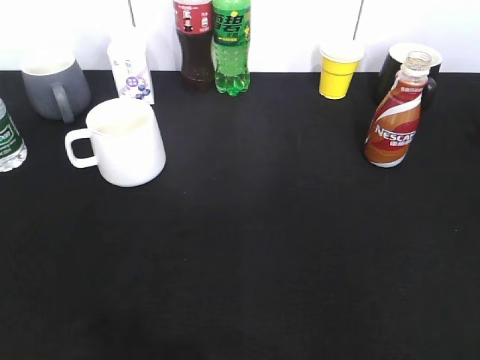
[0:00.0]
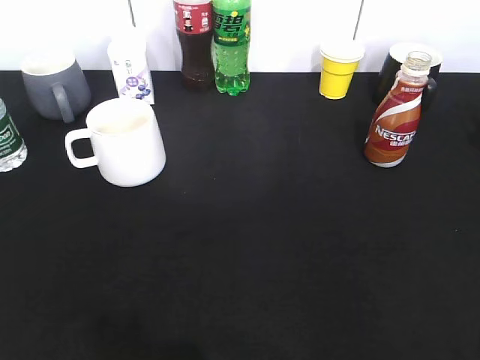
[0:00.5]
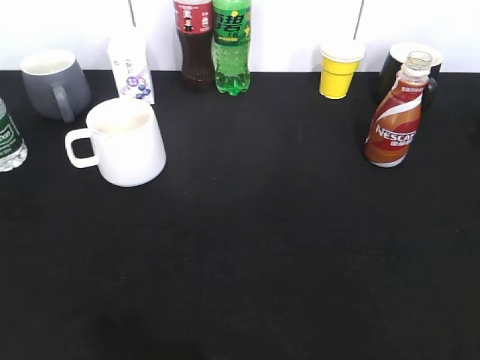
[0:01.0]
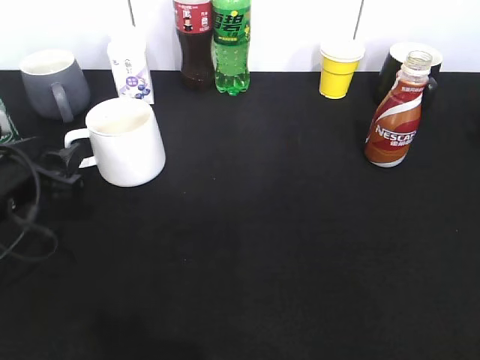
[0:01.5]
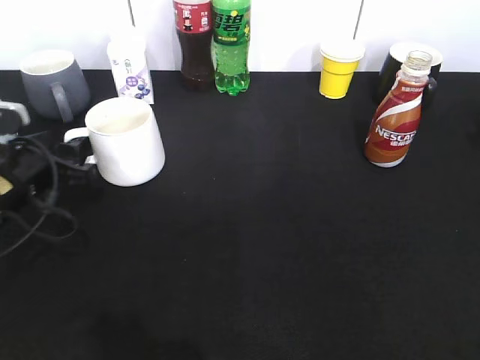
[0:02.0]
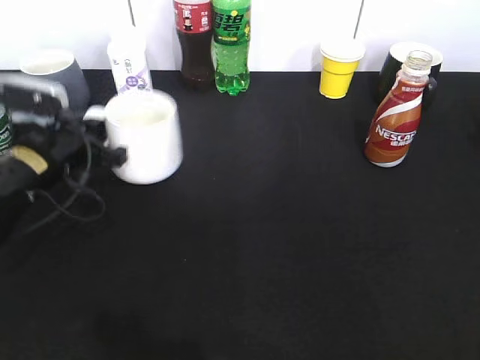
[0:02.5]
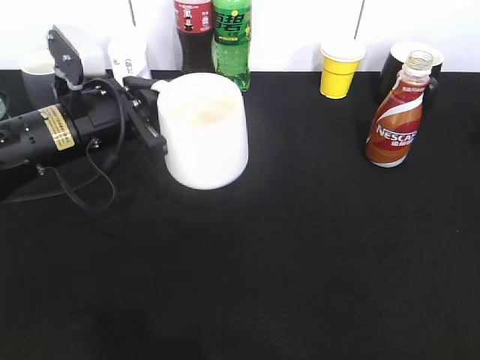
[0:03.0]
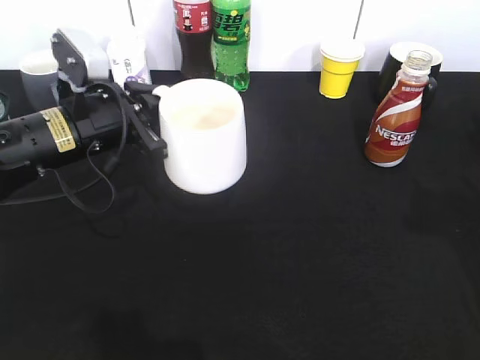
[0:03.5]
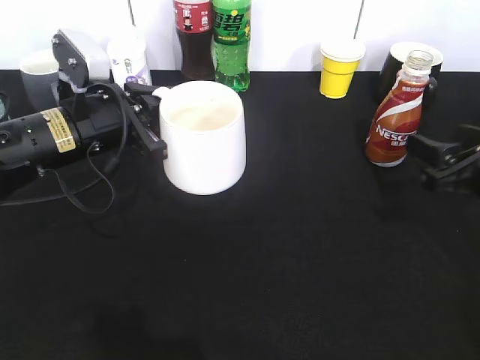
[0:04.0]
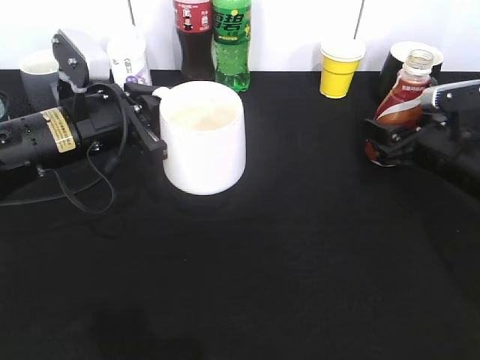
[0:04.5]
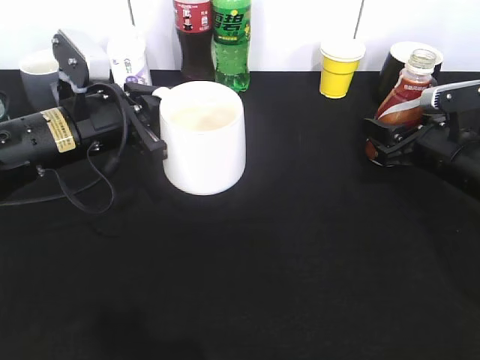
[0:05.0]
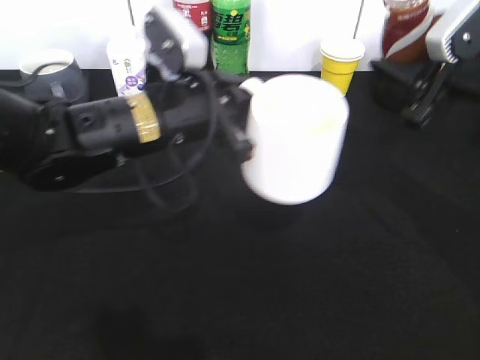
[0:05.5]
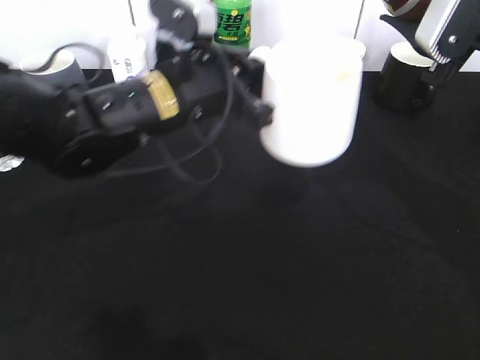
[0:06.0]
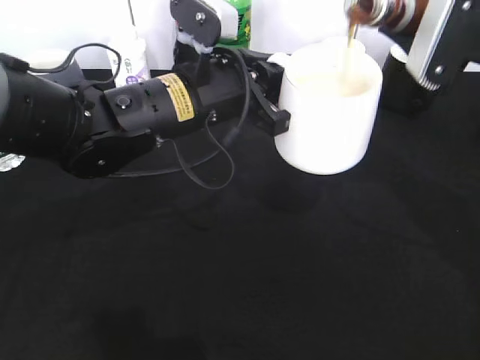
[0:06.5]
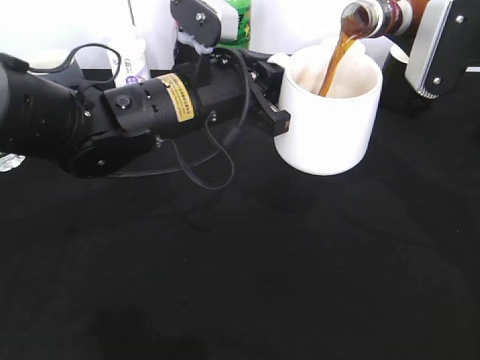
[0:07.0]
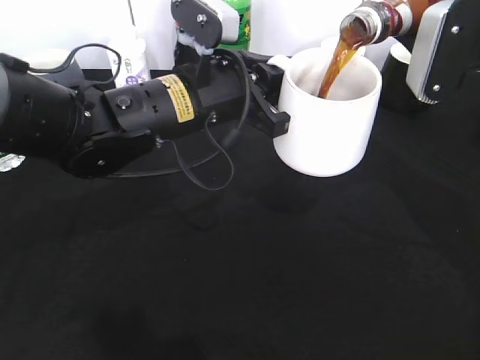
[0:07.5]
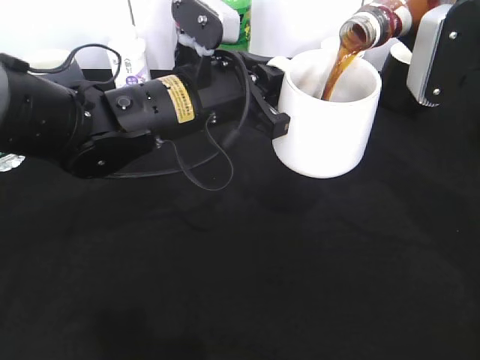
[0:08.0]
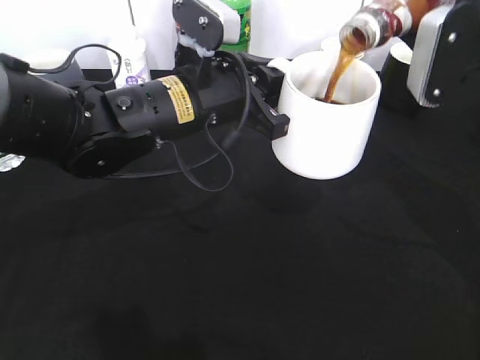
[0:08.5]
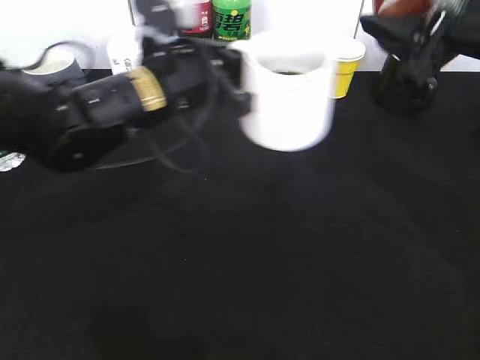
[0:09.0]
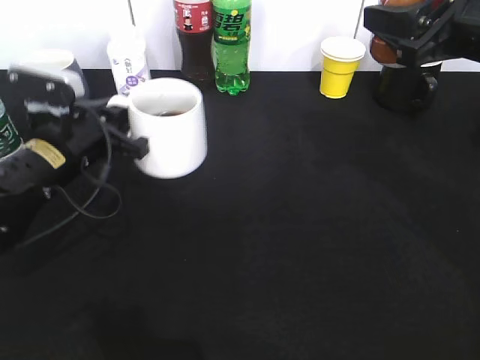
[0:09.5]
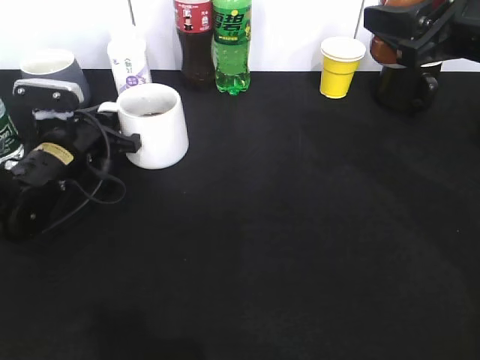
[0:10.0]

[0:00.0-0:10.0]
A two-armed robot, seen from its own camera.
Step, 0:00.0 to 0:02.0: Grasp the white cup with left gripper.
Step, 0:03.5 to 0:04.5: Grasp the bottle with coffee with right gripper.
Step, 0:05.0 to 0:08.5: Pour the coffee from bottle to cup with right gripper.
0:00.0 to 0:02.0: The left gripper goes roughly 30 cm forward and downward, and opens.
0:02.0 to 0:04.0: The right gripper travels forward and downward by roughly 30 cm; the left gripper heads to the right and upward, covering about 10 cm, and closes.
0:04.0 to 0:06.0: The left gripper moves to the right, some 10 cm. Meanwhile the right gripper goes approximately 15 cm upward, and closes its fingers.
0:08.0 to 0:10.0: The left gripper moves to the left and downward, some 20 cm.

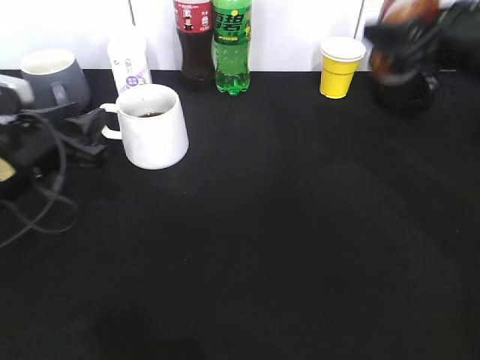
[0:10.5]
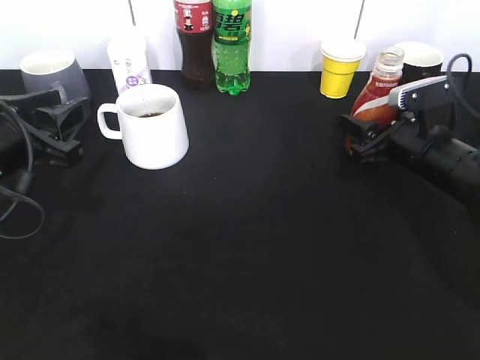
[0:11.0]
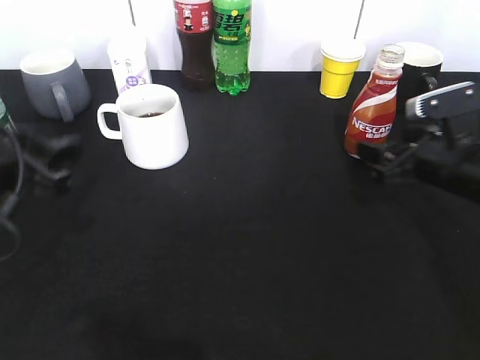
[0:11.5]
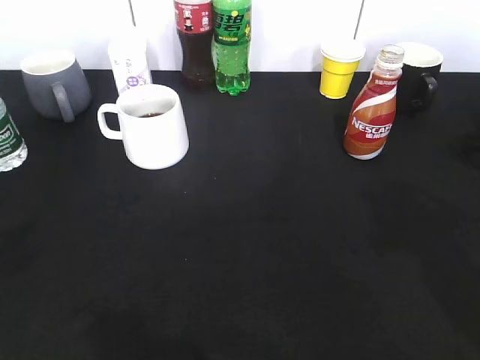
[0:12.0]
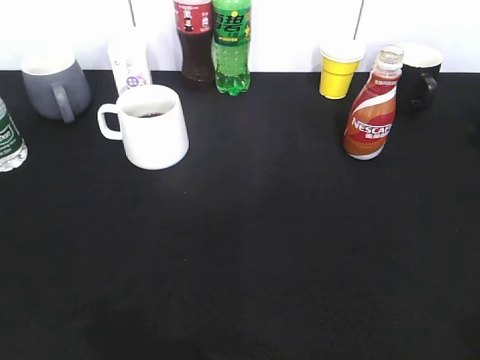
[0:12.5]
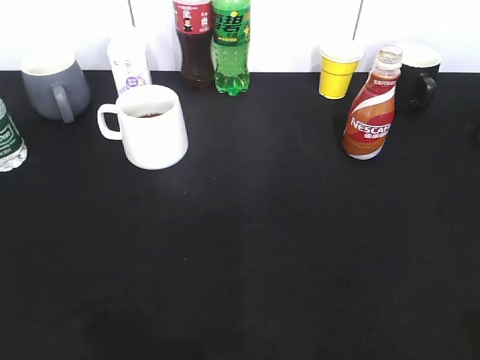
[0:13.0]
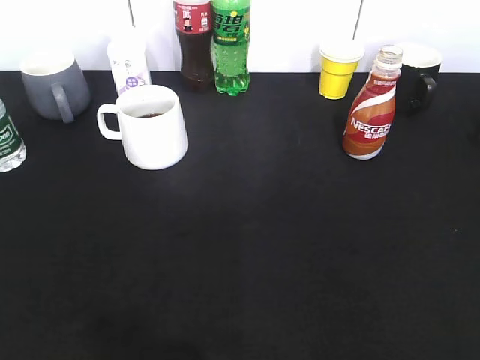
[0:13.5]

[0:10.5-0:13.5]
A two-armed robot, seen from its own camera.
Step, 0:11.0 to 0:11.5: Place the coffee bottle on the table with right gripper.
0:10.5 to 0:12.0: The left gripper shifts approximately 20 cm backward and upward; the right gripper shifts approximately 15 cm backward, moves roughly 15 cm downward and comes back, and opens up.
0:12.0 to 0:13.5: Both grippers travel together backward, some 15 cm.

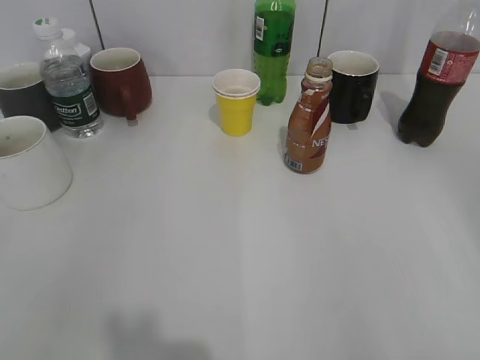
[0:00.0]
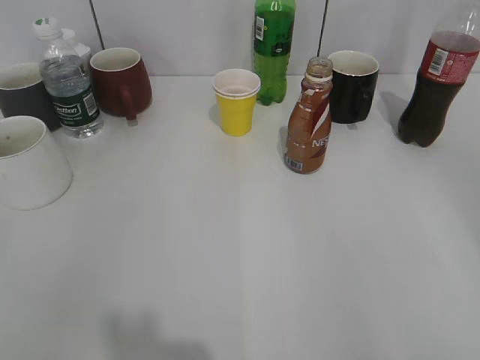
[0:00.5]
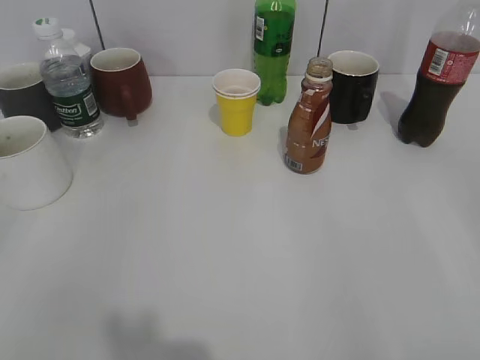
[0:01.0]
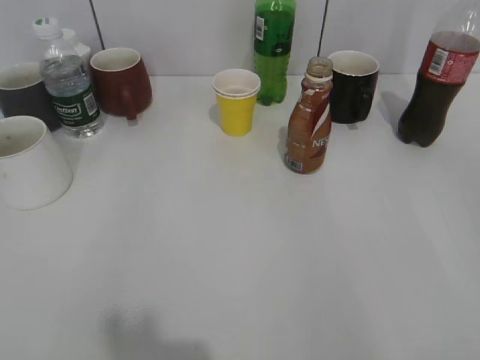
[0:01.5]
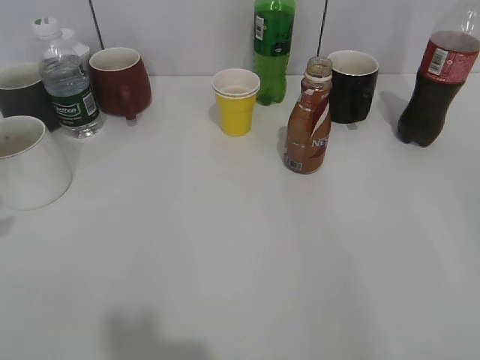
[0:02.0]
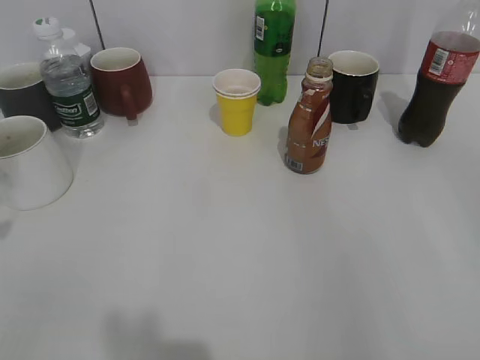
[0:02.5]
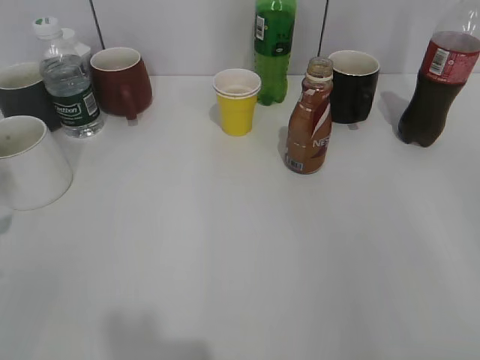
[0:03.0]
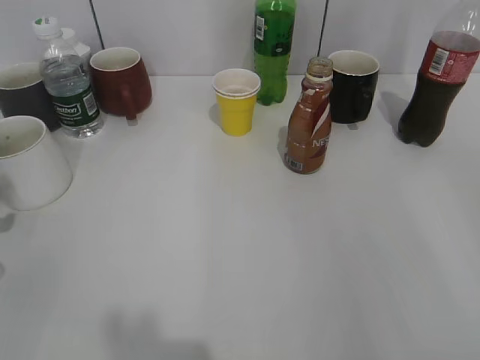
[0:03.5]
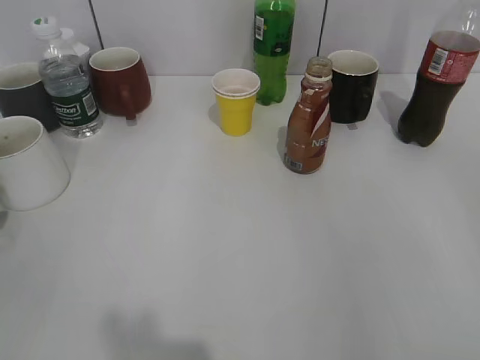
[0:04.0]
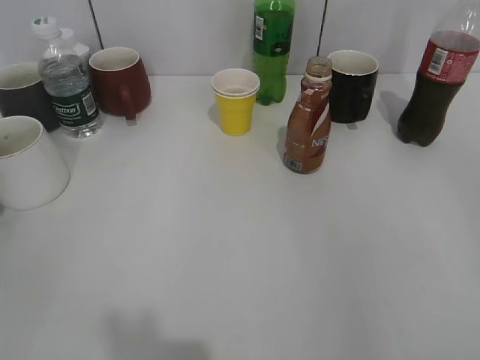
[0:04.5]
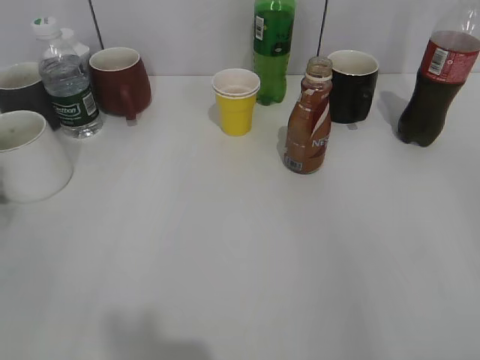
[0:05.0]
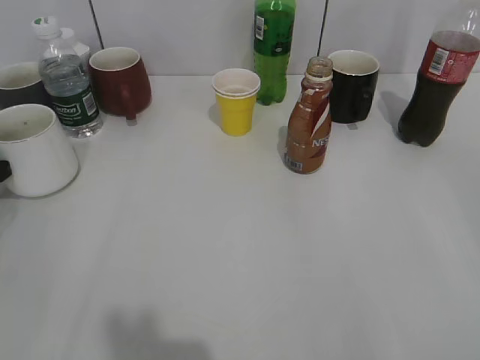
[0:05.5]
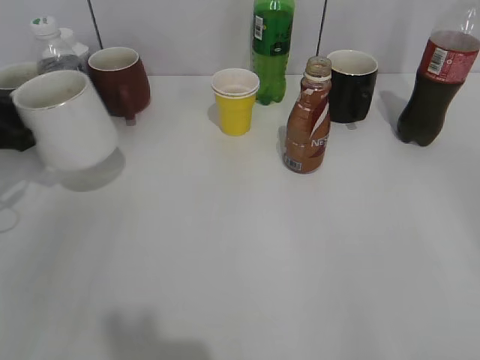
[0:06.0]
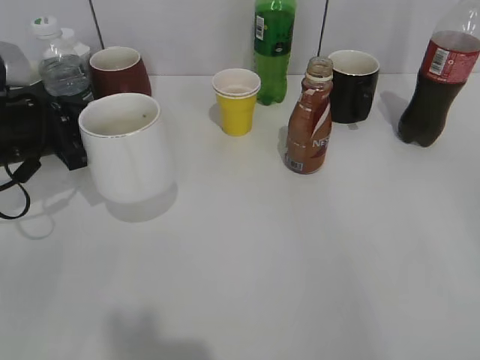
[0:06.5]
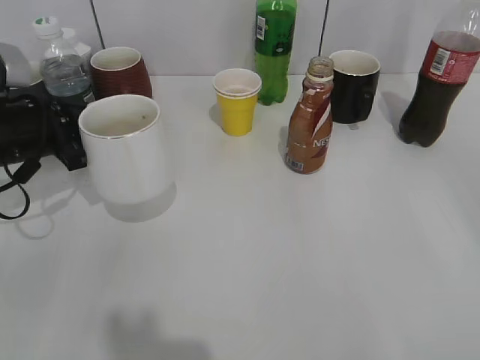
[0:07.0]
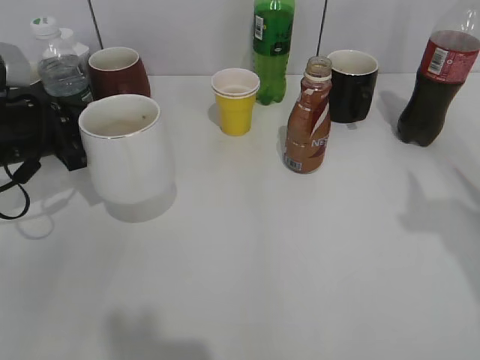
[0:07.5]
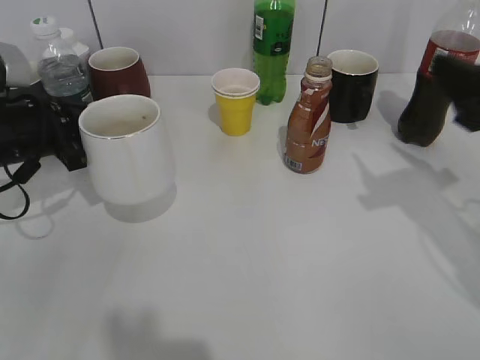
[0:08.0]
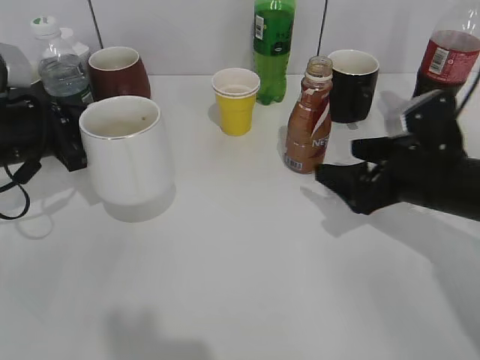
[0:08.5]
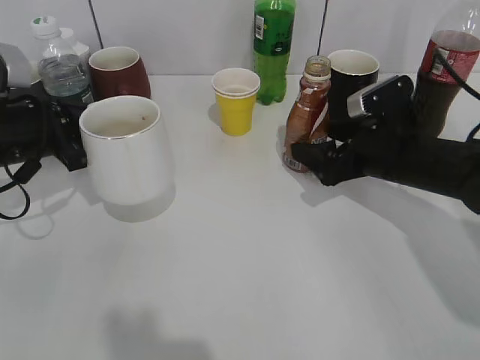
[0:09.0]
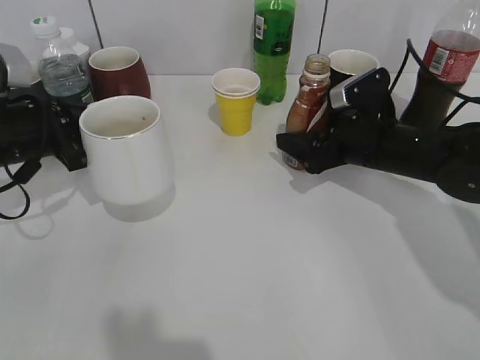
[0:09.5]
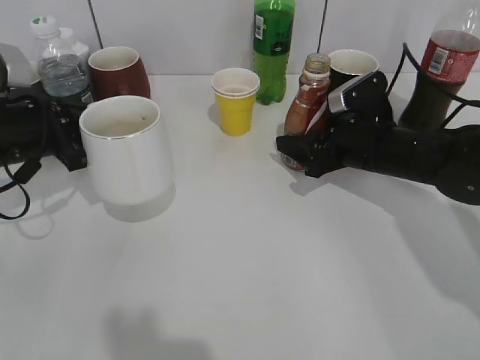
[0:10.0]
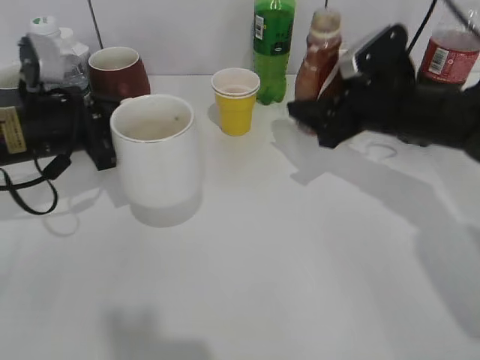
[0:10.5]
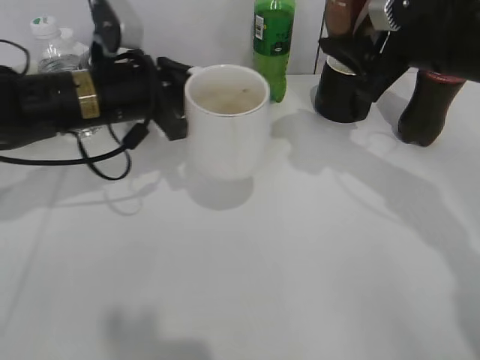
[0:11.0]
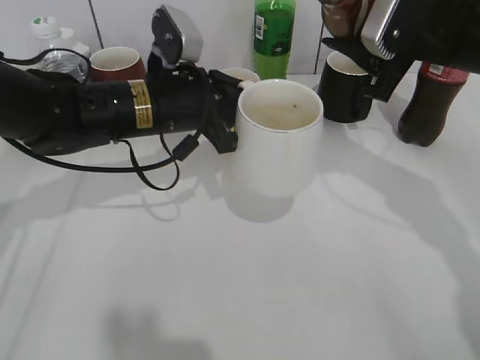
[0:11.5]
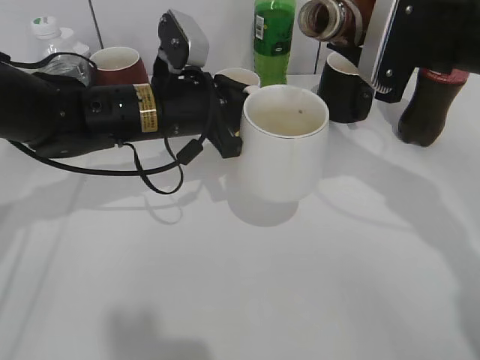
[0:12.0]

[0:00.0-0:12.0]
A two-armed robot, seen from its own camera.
Step, 0:05.5 to 0:07.0: Lift the white cup with left gripper.
Step, 0:07.5 to 0:10.0: Grasp the bottle with coffee with right gripper.
0:04.0 to 0:06.0: The left gripper goes approximately 10 cm forward, and closes.
0:06.0 to 0:08.0: The left gripper shifts some 10 cm to the right. The right gripper is displaced forward by about 20 cm.
0:08.0 to 0:10.0: The right gripper goes roughly 20 cm downward, forward and to the left, and opens, then closes once more.
0:10.0 to 0:12.0: The right gripper shifts about 15 cm upward, while the left gripper goes roughly 15 cm to the right.
